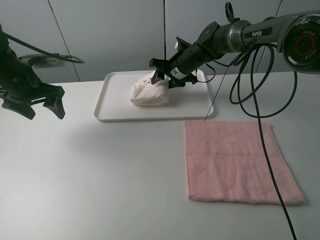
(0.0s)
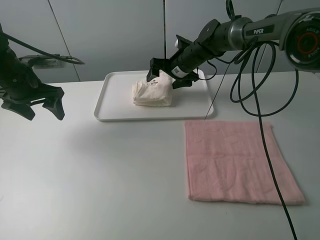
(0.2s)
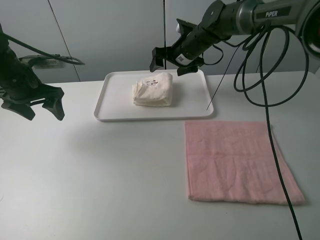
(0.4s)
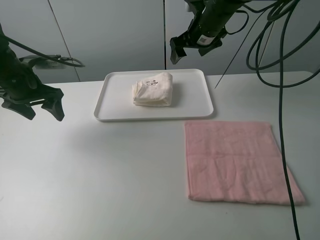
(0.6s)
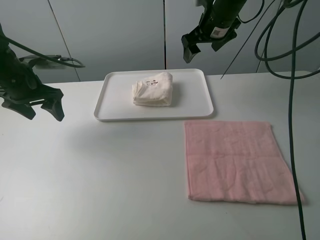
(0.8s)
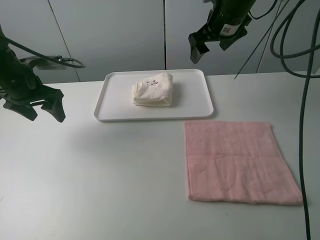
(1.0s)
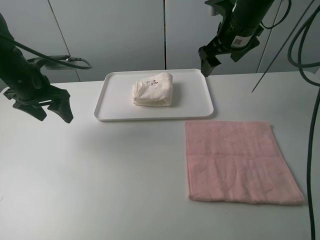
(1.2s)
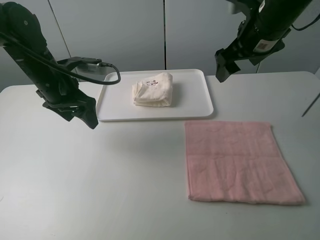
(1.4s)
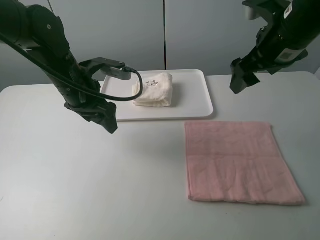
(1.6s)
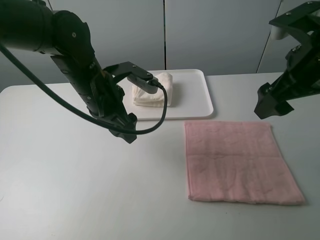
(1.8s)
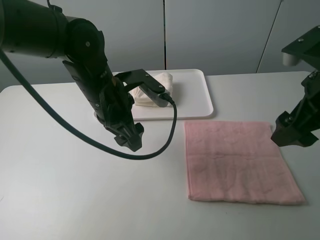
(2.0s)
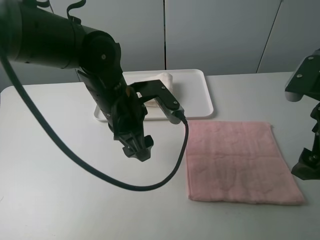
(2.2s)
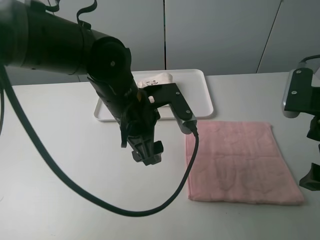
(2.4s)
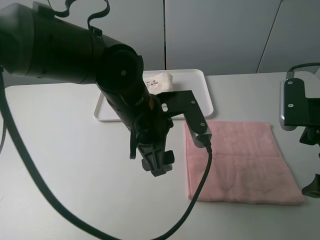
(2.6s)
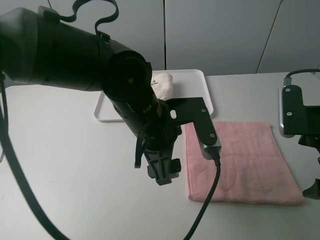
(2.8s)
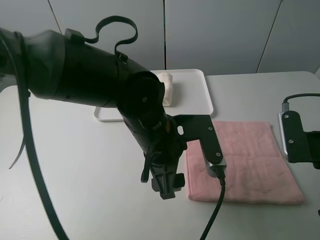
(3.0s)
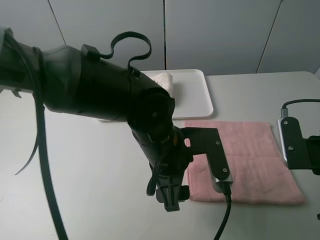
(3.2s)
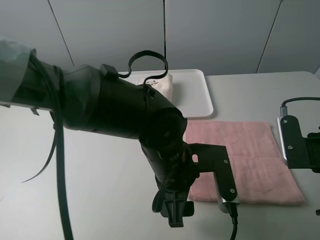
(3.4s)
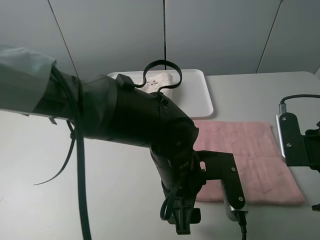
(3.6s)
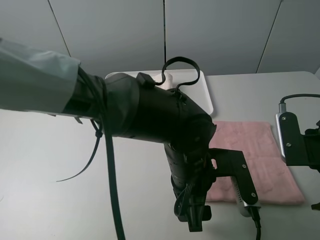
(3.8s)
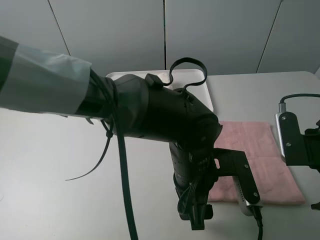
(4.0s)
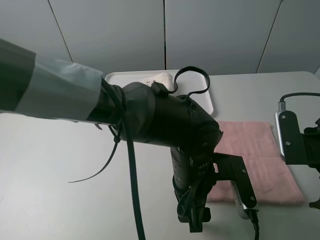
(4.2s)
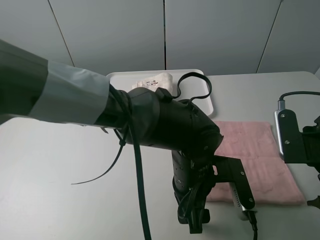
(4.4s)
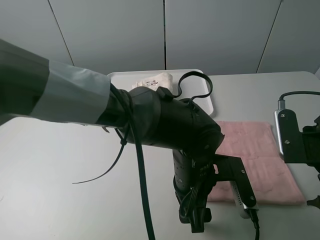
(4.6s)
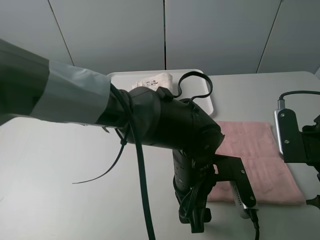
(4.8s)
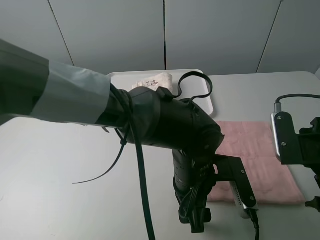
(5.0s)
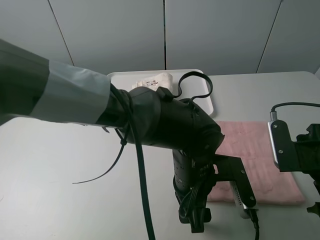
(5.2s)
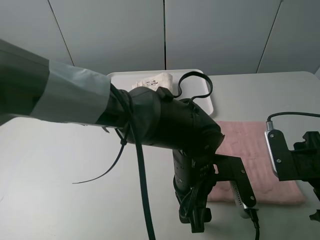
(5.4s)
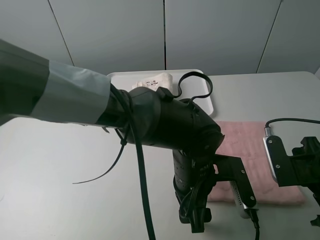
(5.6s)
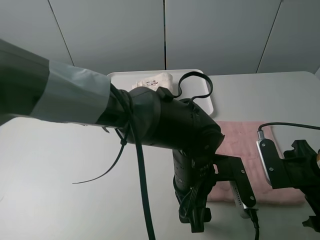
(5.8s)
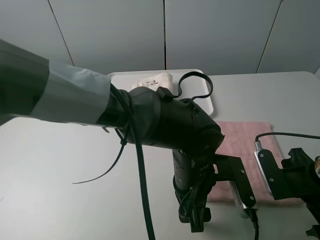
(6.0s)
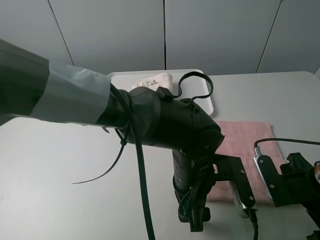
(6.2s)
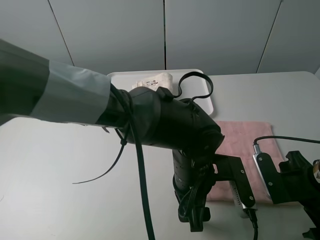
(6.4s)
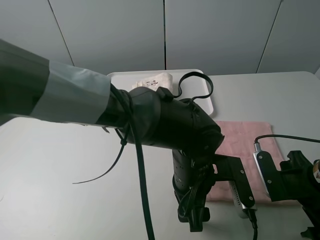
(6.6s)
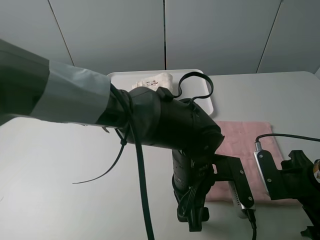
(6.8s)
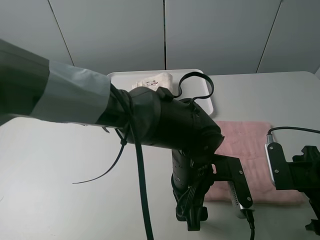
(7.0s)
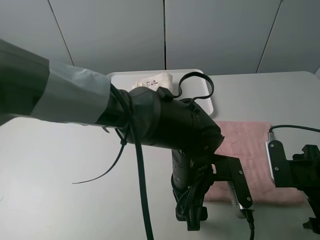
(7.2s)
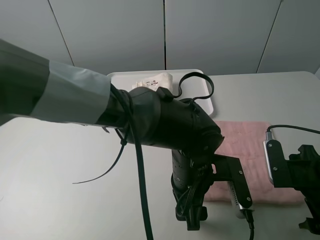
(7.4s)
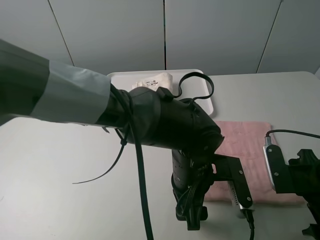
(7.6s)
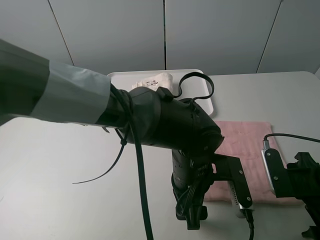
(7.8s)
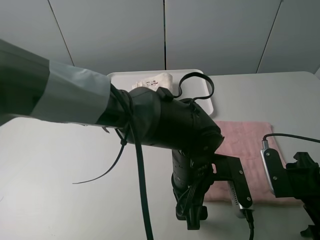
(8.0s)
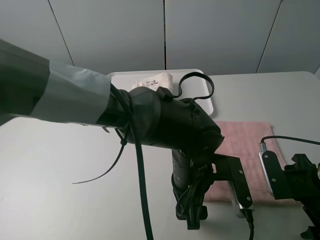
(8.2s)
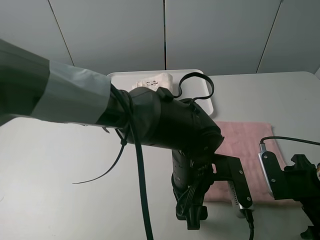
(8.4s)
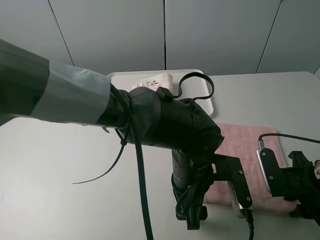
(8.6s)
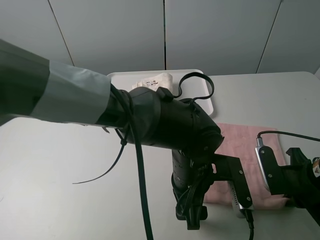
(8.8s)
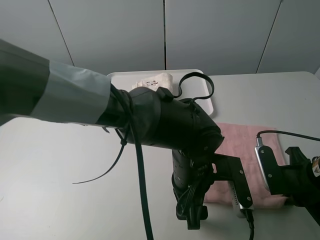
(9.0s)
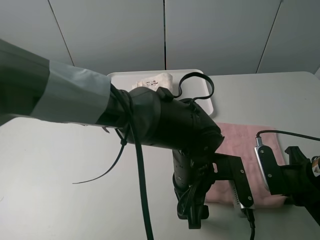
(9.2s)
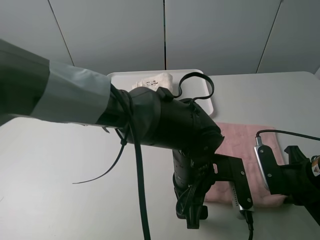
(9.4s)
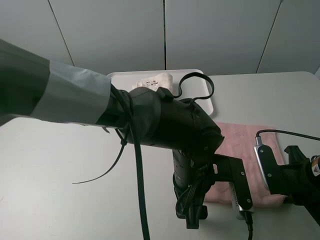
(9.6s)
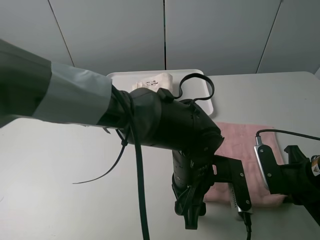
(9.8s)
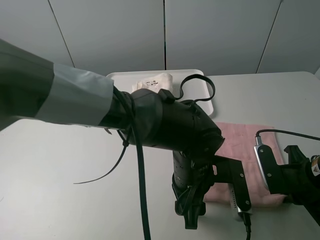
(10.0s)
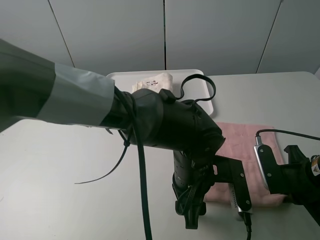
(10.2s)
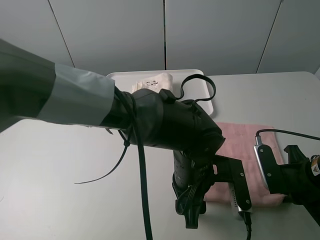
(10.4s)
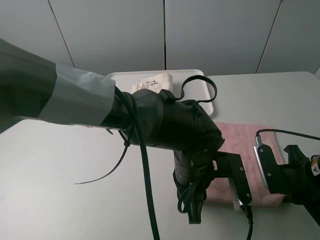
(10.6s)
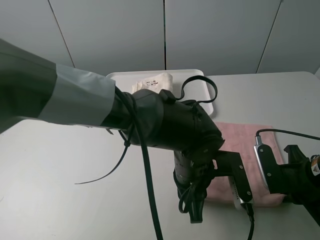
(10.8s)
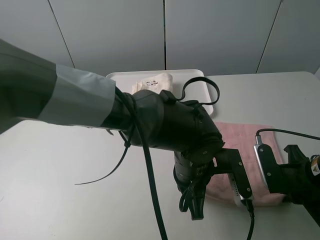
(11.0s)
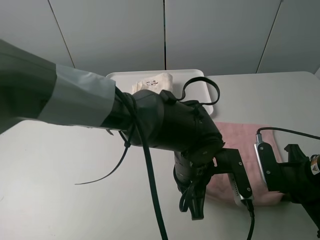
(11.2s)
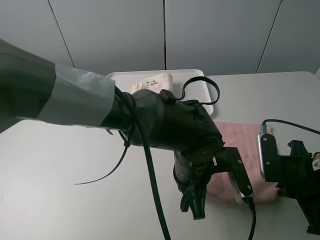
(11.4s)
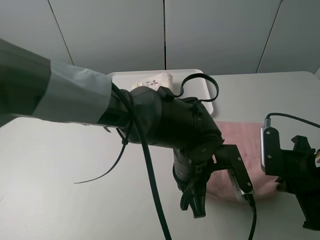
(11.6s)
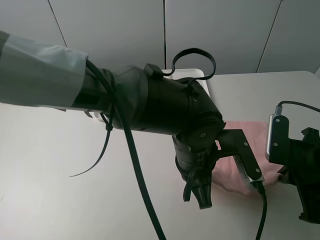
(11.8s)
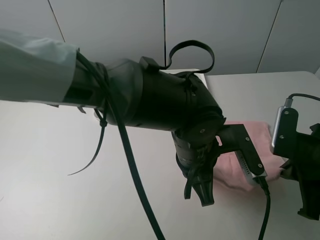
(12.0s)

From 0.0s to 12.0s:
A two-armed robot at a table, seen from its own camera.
Task of the whole recording: fold one of the towels by two grippers and place it on the tray,then fold another towel by two grippers and place it on the folded towel.
Step, from 0.6s to 11.0s: Grasp the pink towel with the left gripper.
From 0.0s to 1.6s: The left gripper moves to the right, some 15 cm, while the right gripper moves backward, upward and to the right, some 30 cm.
From 1.6s to 3.0s: The right gripper goes roughly 20 cm backward, downward and to the right. Meanwhile the left gripper goes some 20 cm to the right and backward.
From 3.0s to 4.4s: The left gripper heads to the right and downward, covering some 10 cm.
From 4.4s to 6.0s: The right gripper is displaced downward by approximately 5 cm.
From 6.0s to 7.6s: The grippers make only small movements.
From 7.6s to 9.0s: The right gripper closes.
From 9.0s to 10.4s: Neither gripper changes place.
From 10.4s to 12.0s: Both grippers move upward, approximately 5 cm. The left gripper closes up.

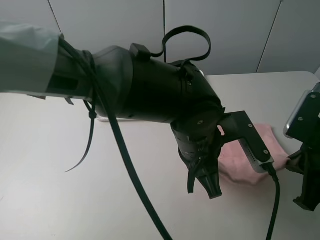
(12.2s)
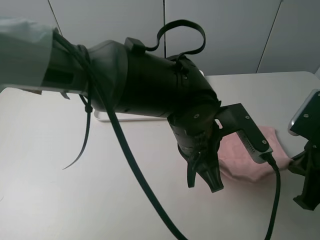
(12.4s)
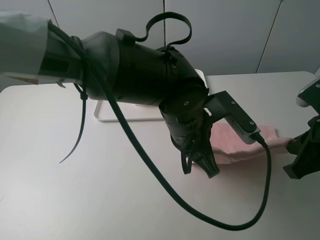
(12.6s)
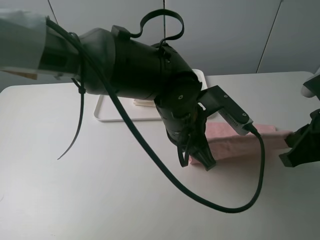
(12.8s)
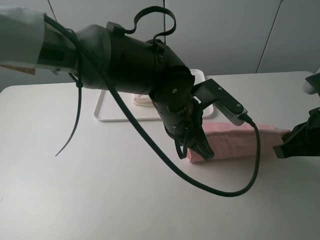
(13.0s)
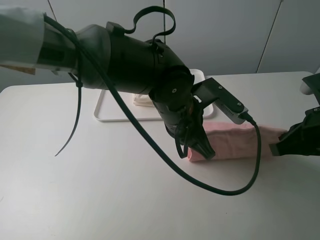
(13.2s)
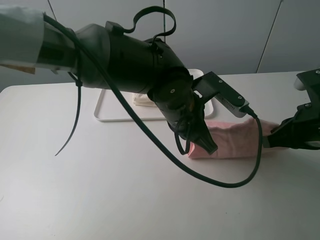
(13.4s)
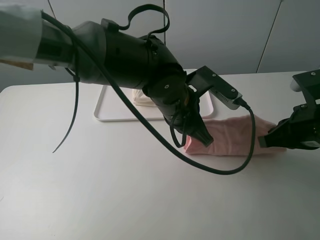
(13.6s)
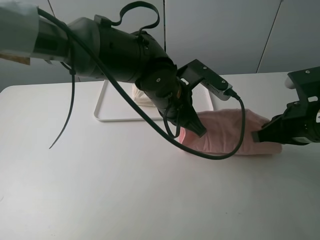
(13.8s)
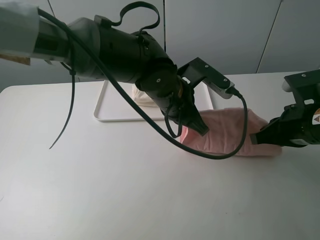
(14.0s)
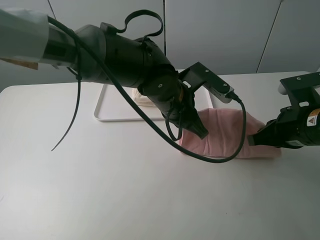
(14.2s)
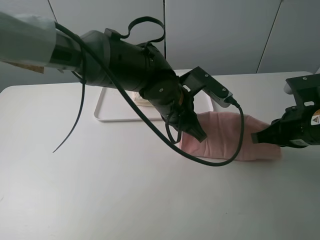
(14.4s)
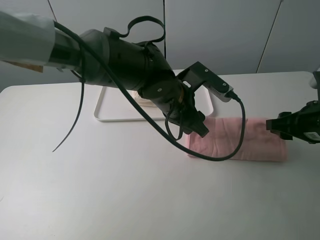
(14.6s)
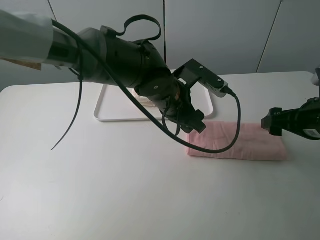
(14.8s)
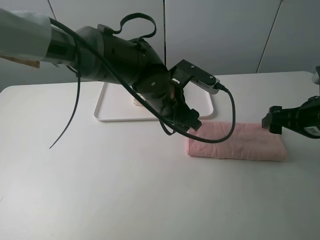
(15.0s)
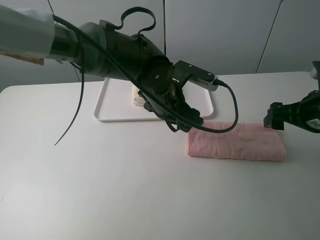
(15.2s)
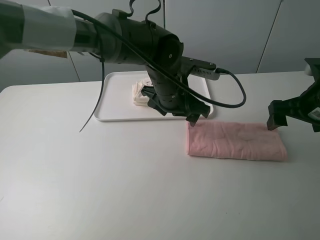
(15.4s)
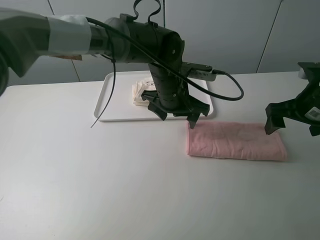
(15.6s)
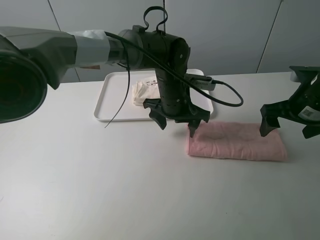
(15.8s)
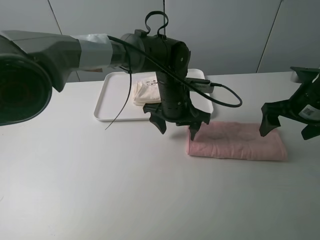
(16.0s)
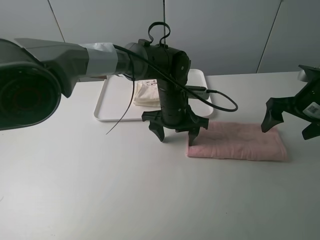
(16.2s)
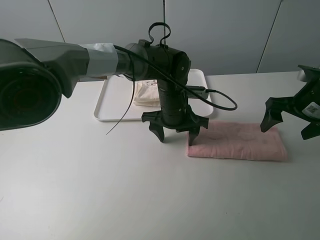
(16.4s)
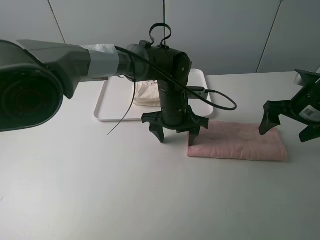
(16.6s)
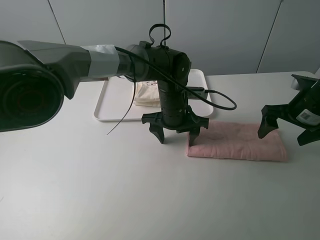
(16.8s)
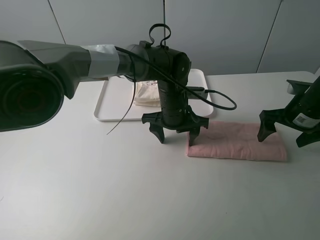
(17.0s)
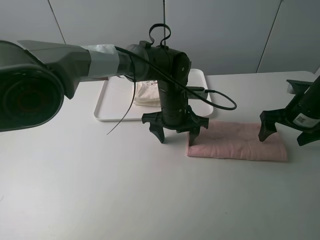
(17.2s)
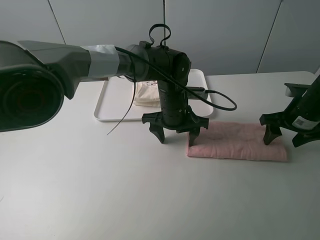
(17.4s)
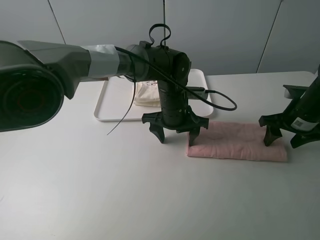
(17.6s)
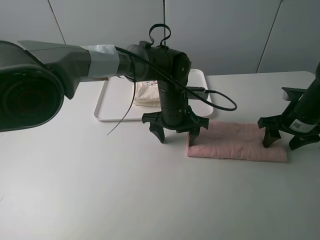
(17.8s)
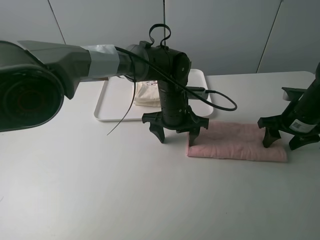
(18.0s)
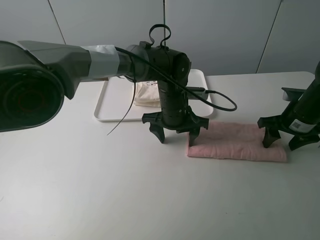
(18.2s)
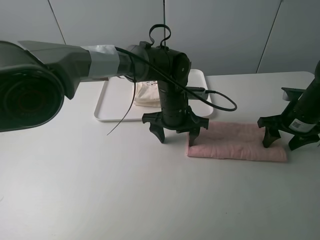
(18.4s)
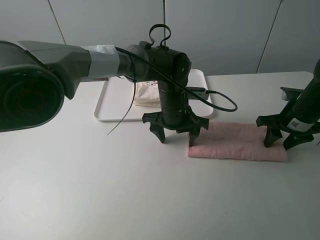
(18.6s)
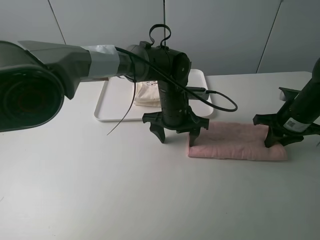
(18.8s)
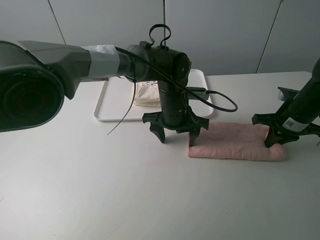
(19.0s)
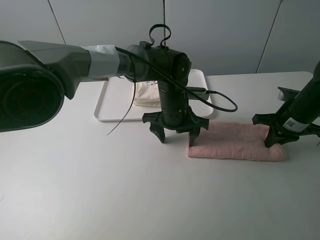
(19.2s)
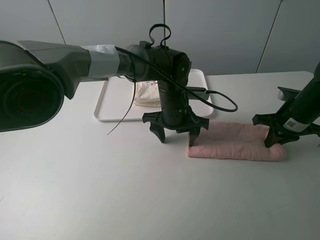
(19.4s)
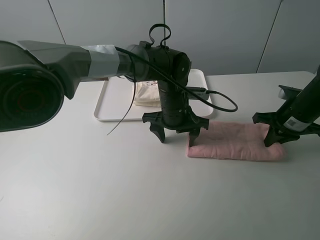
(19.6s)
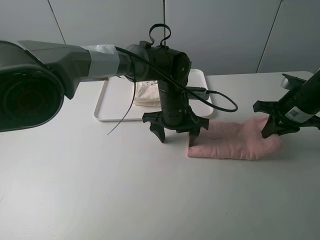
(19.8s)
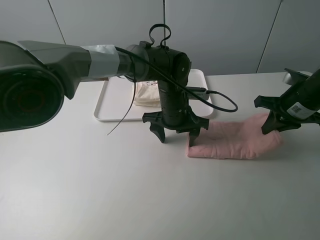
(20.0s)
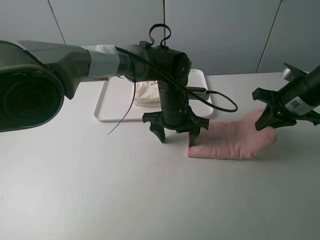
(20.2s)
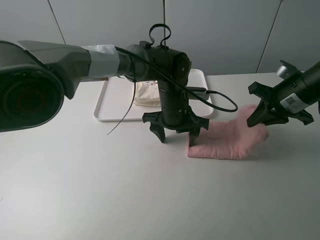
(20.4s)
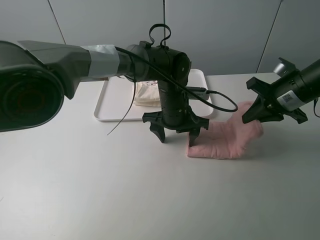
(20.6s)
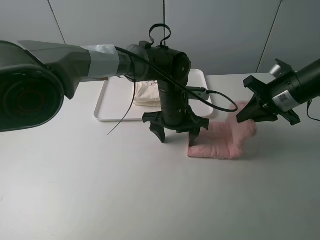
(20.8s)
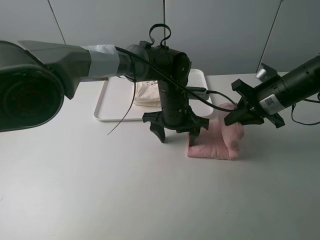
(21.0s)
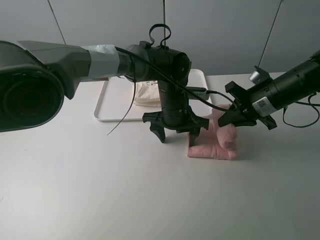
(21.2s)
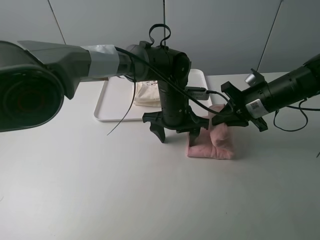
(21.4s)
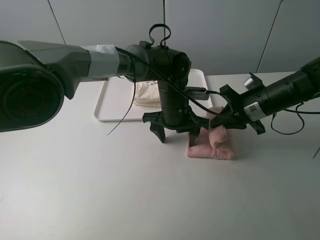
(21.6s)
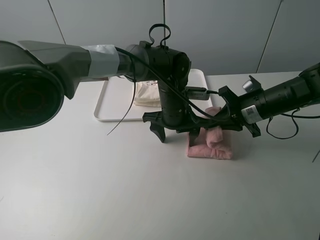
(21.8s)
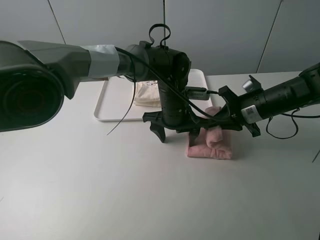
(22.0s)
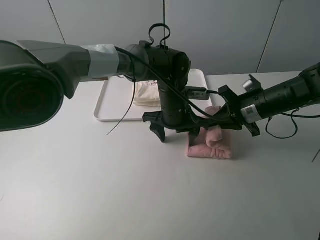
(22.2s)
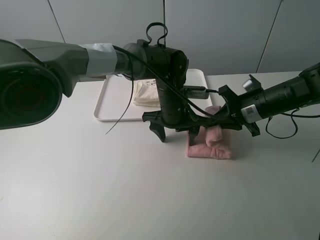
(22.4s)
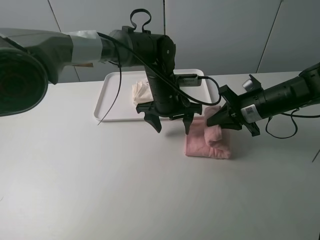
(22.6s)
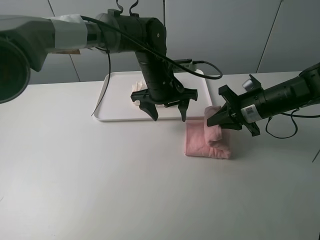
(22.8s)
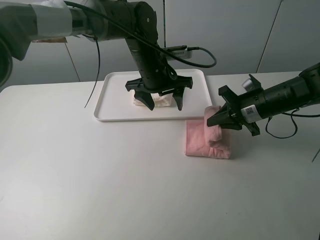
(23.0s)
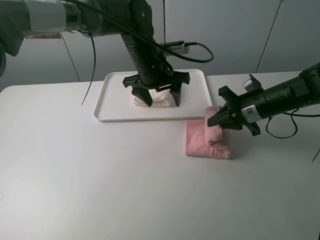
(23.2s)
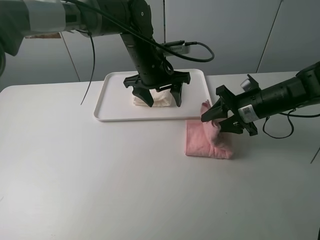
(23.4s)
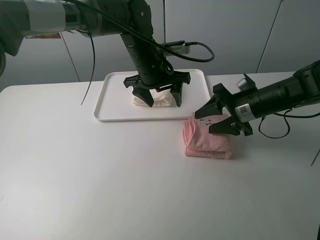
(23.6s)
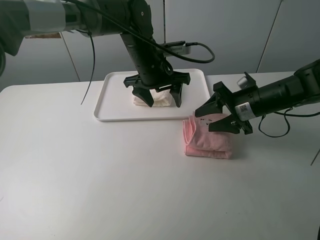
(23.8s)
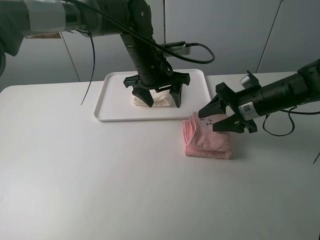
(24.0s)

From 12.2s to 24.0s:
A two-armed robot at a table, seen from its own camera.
Task of the whole recording: fold one of the towels by two grippers and place it on the tray,then fold another towel by two grippers and place it on the folded towel.
Step, from 12.2s to 14.6s: Fold the pink towel upwards with the left gripper.
Step, from 14.8s to 16.8s: Press the pink towel with the left gripper.
Step, from 17.0s to 19.4s: Grasp the pink towel with the right gripper.
Step, from 19.6s to 24.0s: Fold the pink towel from right to left with right gripper.
From 12.2s to 13.6s: The left gripper travels forward by roughly 5 cm. The right gripper moves about 5 cm.
From 13.6s to 15.2s: The right gripper moves some 5 cm, and opens; the left gripper opens its fingers.
From 15.2s to 16.6s: The left gripper moves downward, some 5 cm. Meanwhile the right gripper moves some 5 cm.
From 16.6s to 18.2s: The right gripper travels downward by about 5 cm.
From 18.2s to 19.6s: The right gripper closes.
From 19.6s to 21.0s: The right gripper travels to the left by some 5 cm.
From 22.6s to 24.0s: The left gripper moves upward, some 5 cm. The right gripper opens its fingers.
